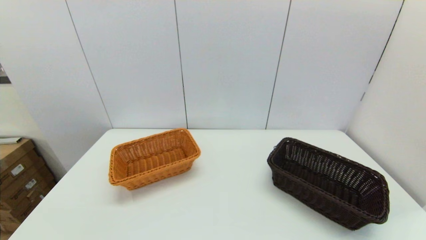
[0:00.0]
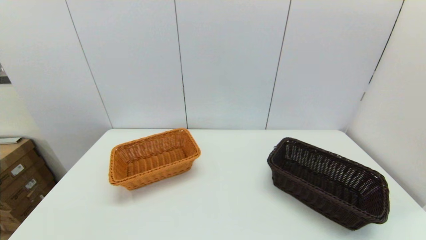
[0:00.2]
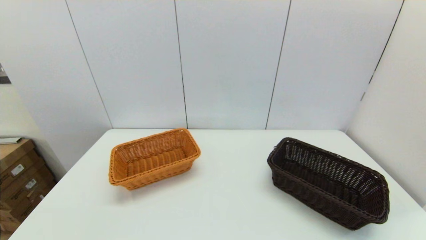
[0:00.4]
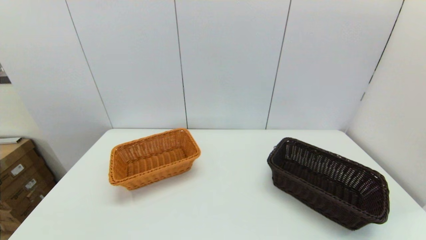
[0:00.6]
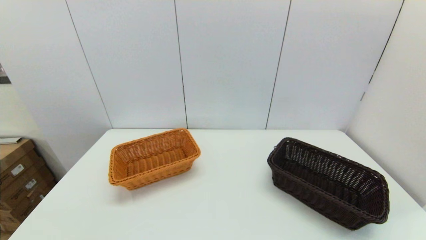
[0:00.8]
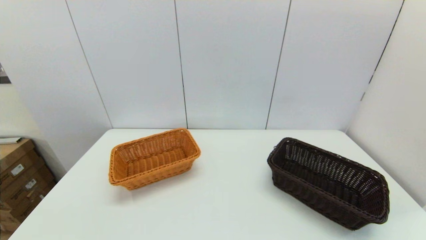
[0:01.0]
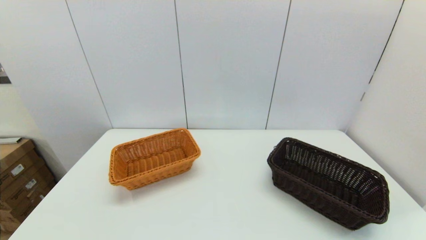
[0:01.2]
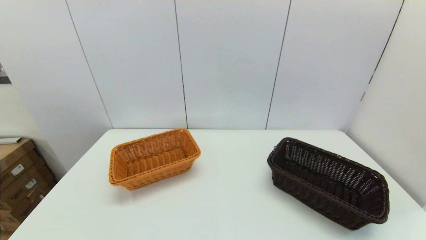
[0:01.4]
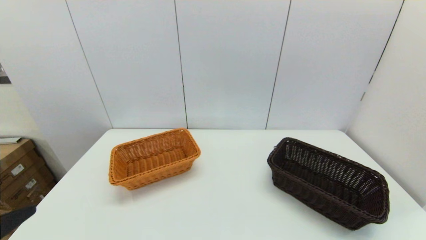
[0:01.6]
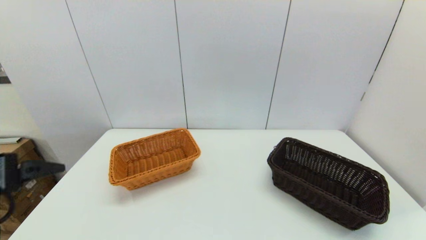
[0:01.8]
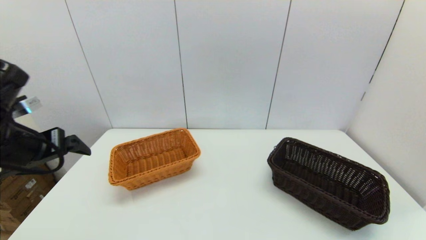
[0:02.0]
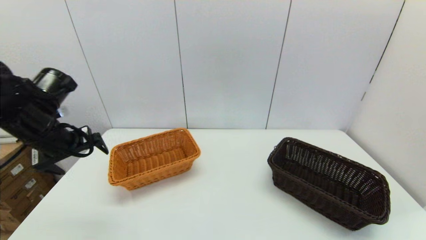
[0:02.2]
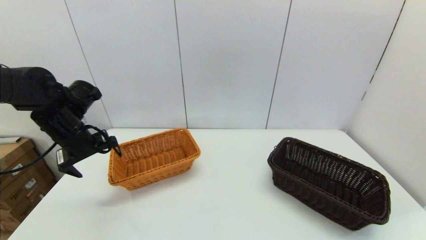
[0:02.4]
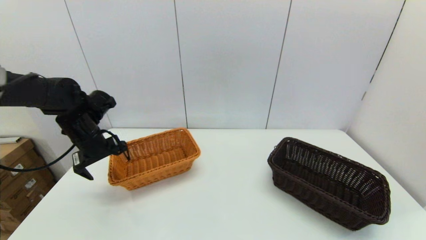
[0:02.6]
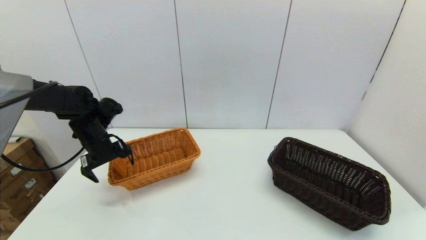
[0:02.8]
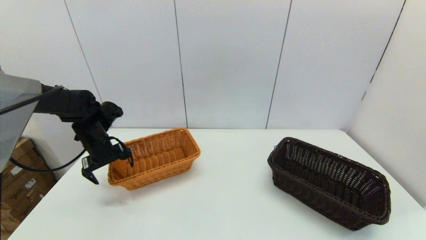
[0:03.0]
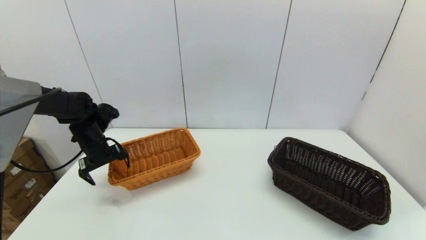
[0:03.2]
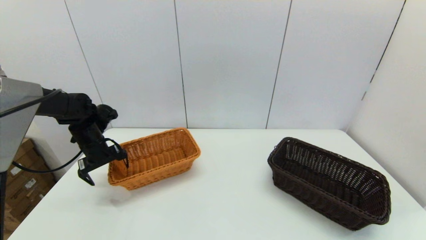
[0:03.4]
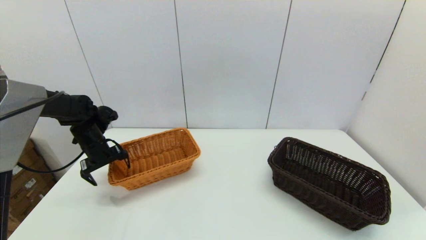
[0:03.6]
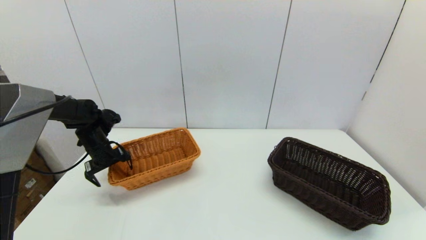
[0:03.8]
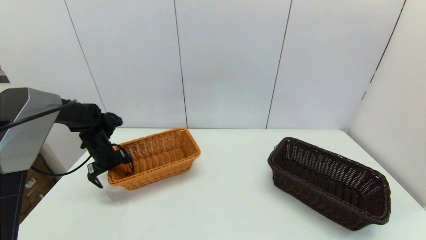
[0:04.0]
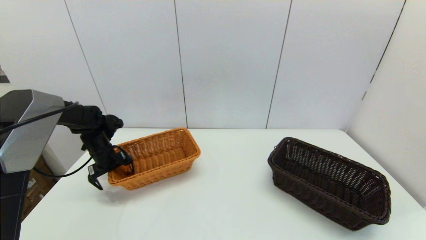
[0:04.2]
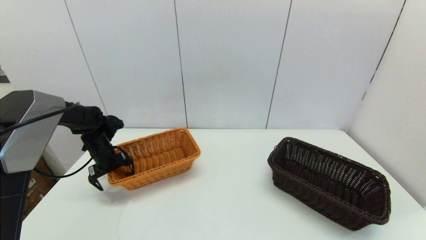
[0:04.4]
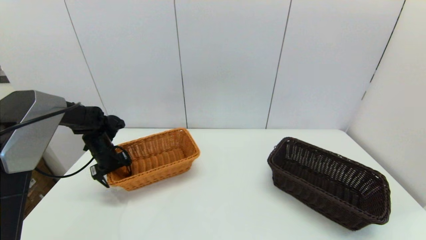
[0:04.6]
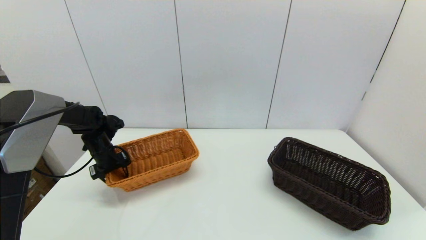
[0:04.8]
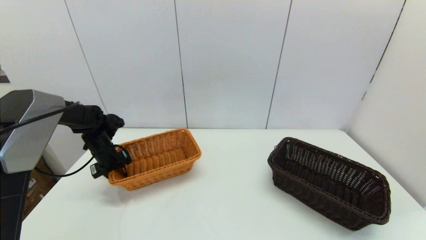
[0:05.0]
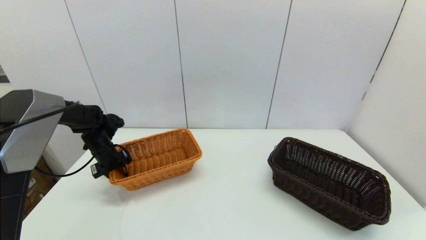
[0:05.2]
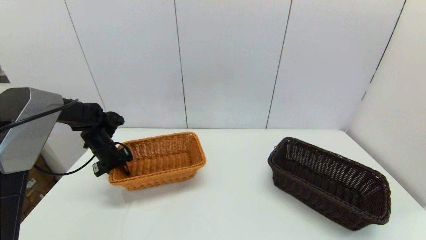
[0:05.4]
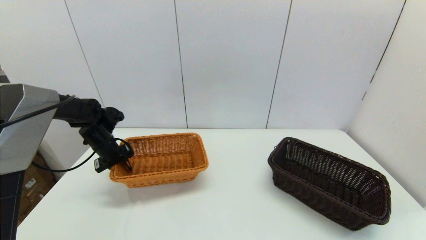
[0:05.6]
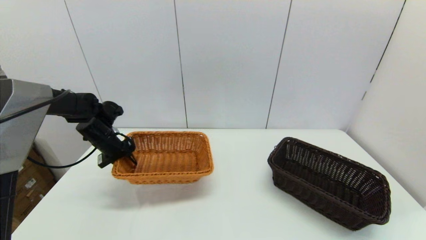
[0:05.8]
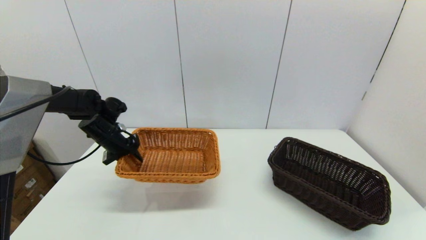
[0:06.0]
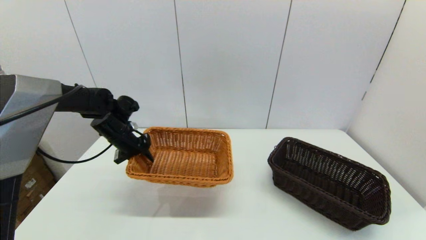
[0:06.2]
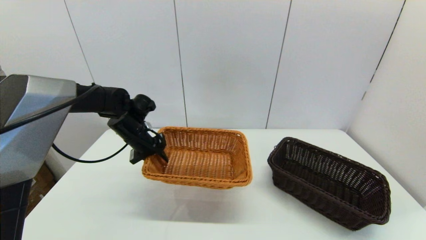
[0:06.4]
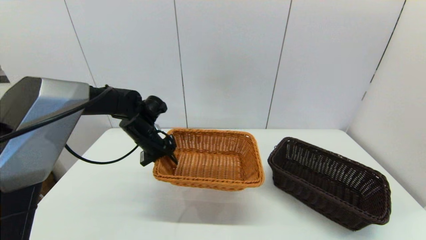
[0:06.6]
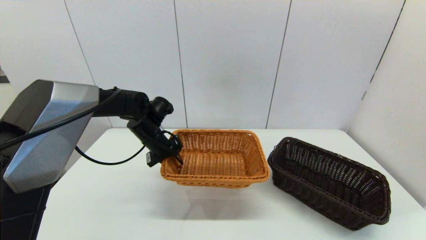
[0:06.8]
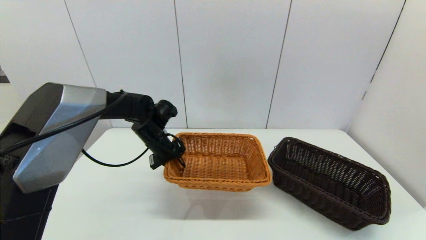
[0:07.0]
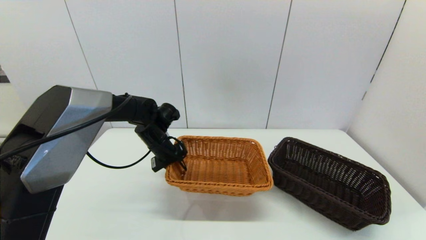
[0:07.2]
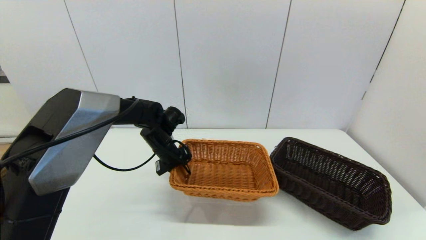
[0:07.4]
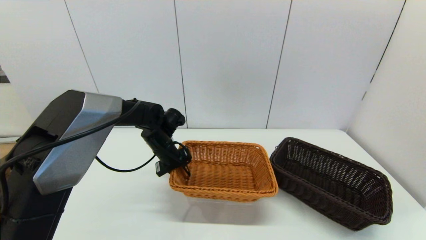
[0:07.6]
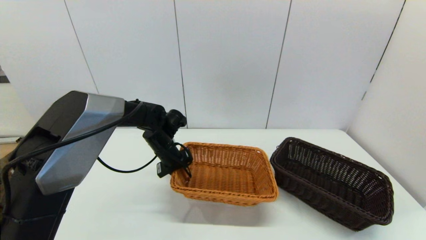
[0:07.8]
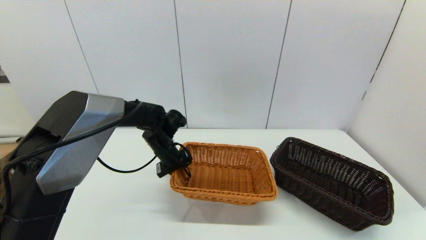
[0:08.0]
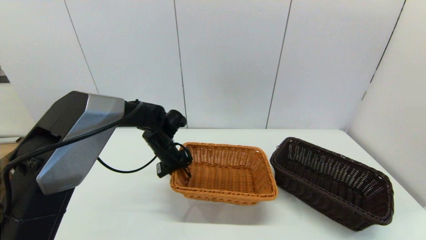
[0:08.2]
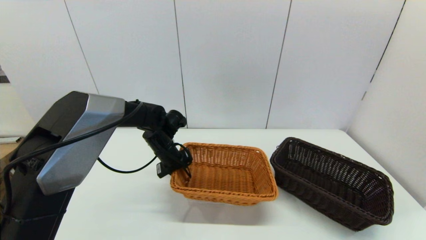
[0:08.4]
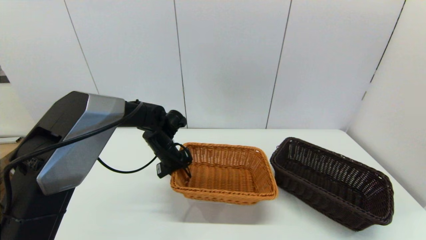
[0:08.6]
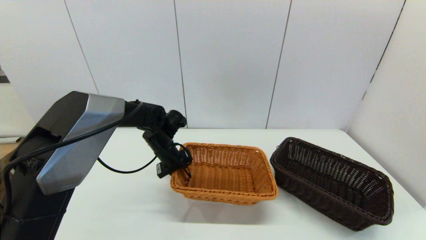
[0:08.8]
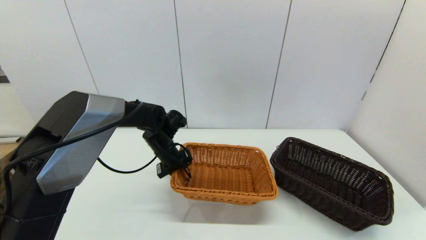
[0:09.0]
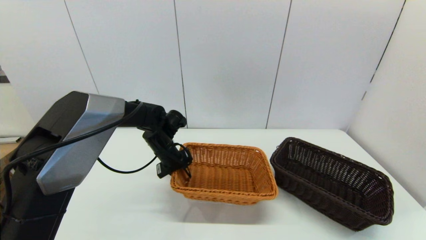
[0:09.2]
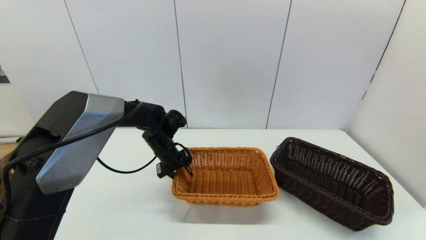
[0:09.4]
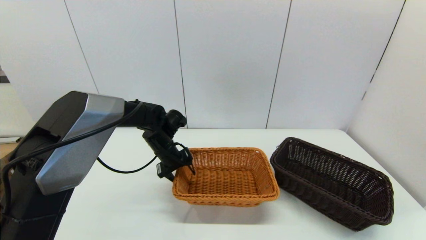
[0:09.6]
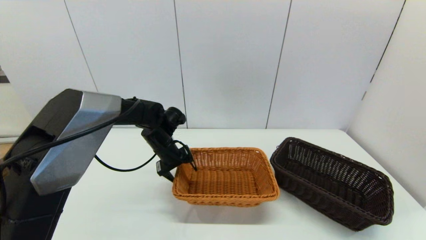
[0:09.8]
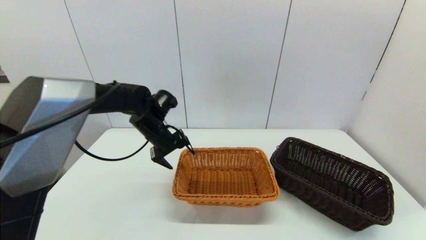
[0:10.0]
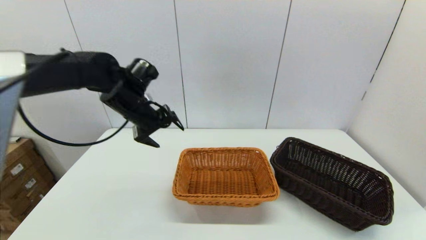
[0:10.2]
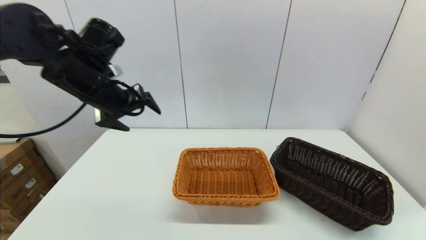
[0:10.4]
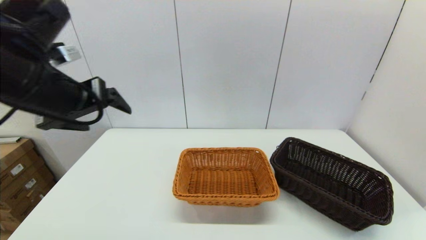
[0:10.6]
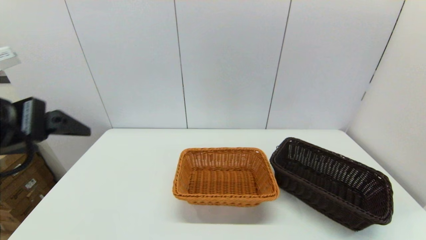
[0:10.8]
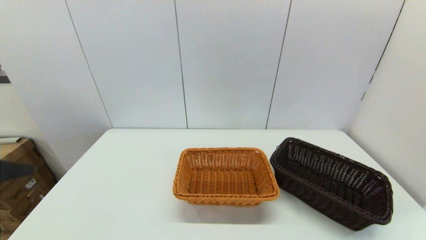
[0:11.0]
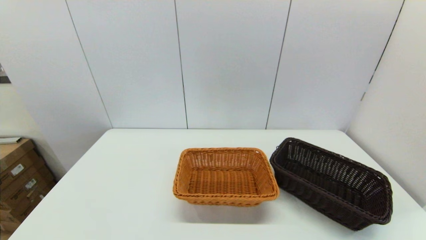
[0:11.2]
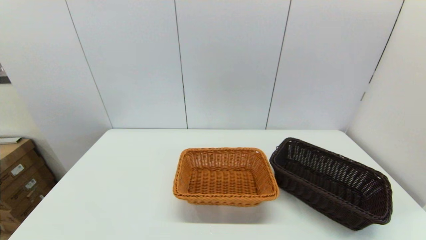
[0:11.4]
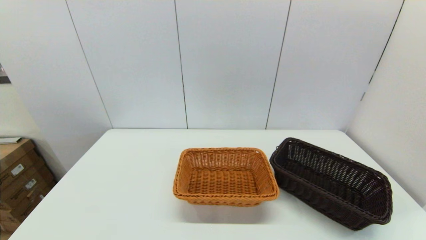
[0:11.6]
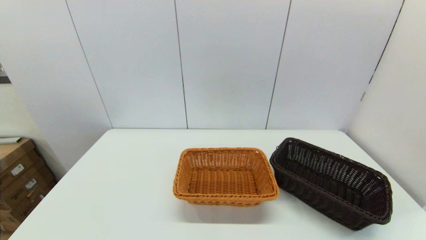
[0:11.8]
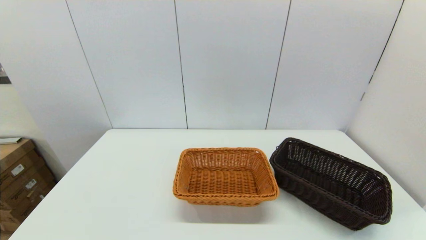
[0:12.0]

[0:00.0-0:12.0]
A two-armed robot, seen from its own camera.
Task of the whole recording: stack a basket on top of another basket.
Step, 0:01.6 to 0:05.4: Grasp the light basket with the left gripper.
Step, 0:05.6 to 0:10.2: Place the light basket on the middle of the table with the left gripper.
0:01.6 to 0:03.0: The left gripper moves forward, some 35 cm.
0:03.0 to 0:04.4: The left gripper shifts some 5 cm downward.
0:04.4 to 0:06.0: The left gripper travels upward by some 5 cm, and closes its fingers.
0:06.0 to 0:07.6: The left gripper shifts roughly 15 cm to the right.
0:07.6 to 0:09.0: Both grippers stay put.
0:09.0 to 0:10.4: The left gripper shifts some 25 cm upward and backward, and opens its fingers.
0:10.4 to 0:12.0: The left gripper is displaced backward by approximately 40 cm.

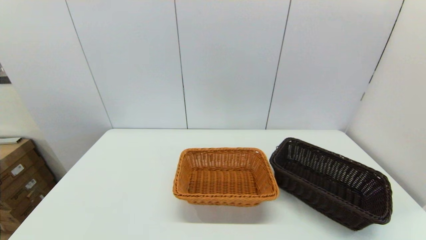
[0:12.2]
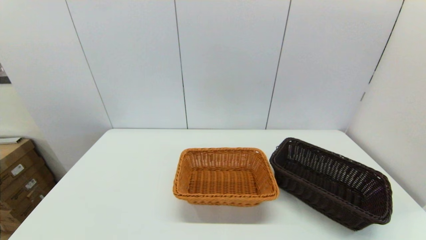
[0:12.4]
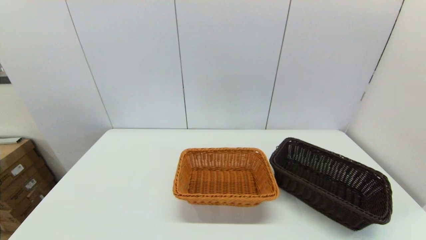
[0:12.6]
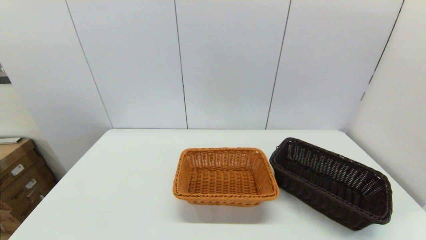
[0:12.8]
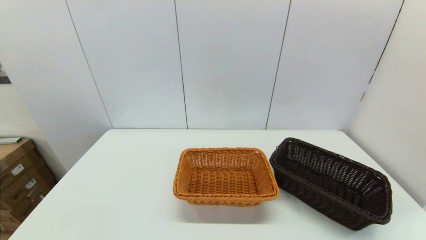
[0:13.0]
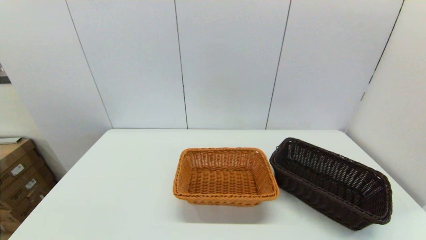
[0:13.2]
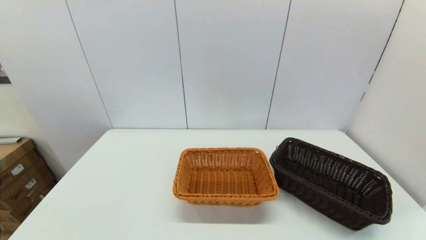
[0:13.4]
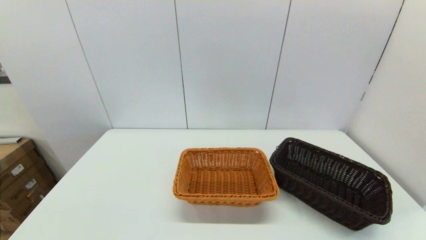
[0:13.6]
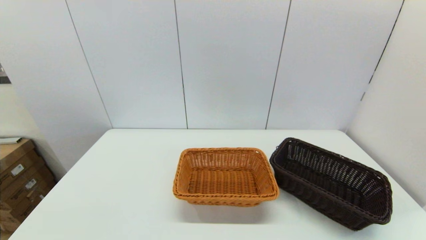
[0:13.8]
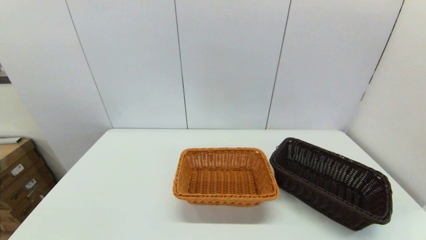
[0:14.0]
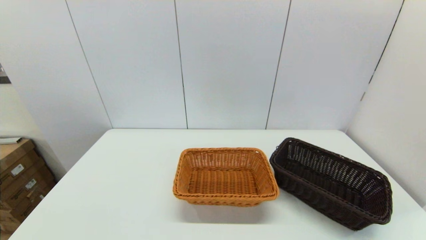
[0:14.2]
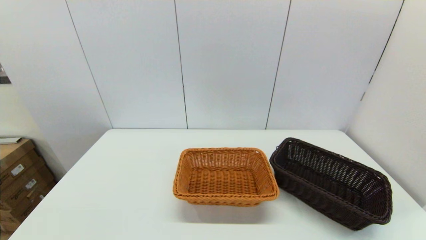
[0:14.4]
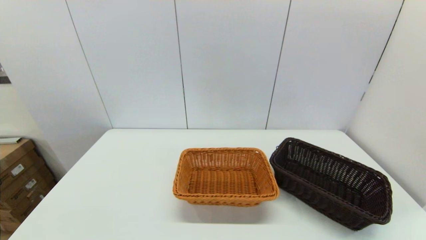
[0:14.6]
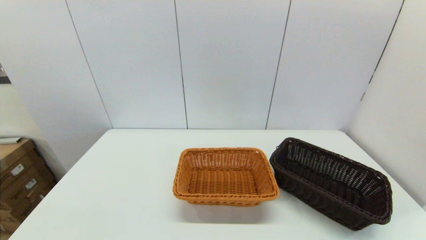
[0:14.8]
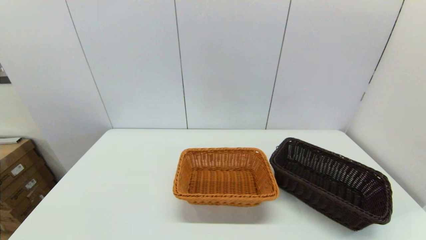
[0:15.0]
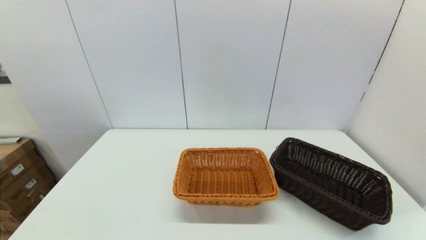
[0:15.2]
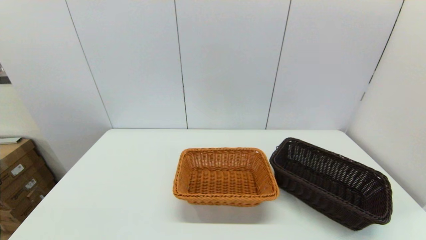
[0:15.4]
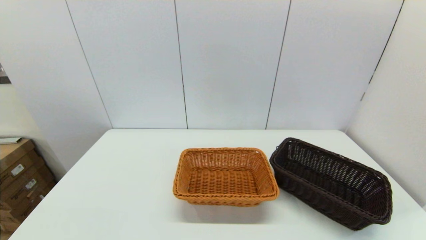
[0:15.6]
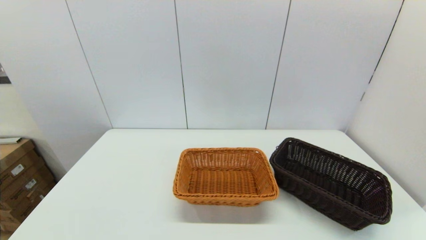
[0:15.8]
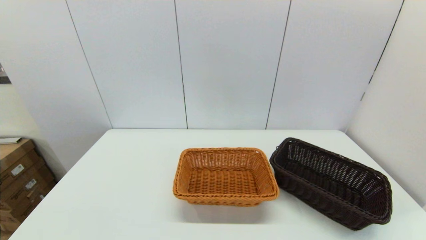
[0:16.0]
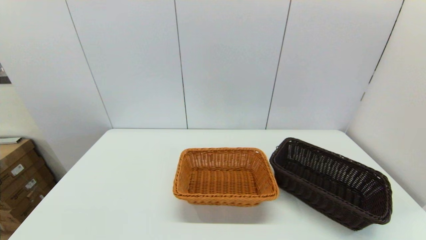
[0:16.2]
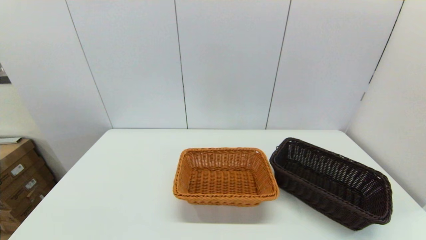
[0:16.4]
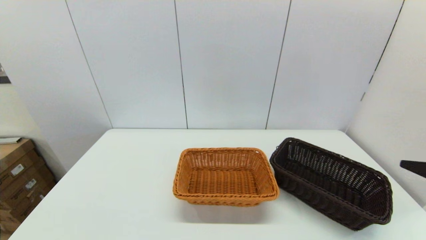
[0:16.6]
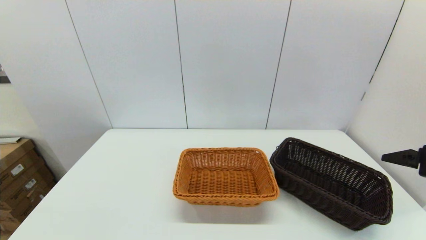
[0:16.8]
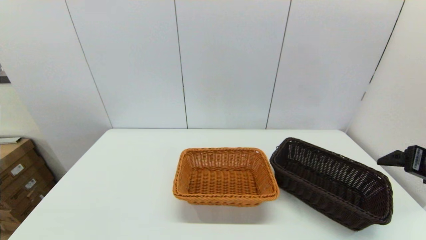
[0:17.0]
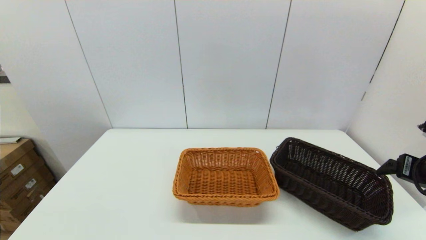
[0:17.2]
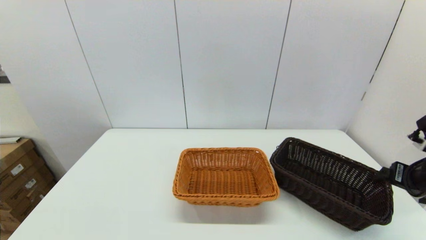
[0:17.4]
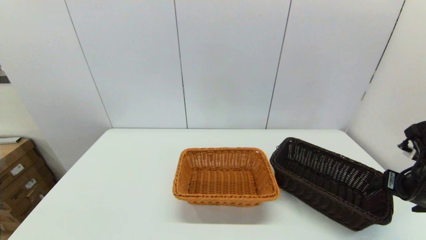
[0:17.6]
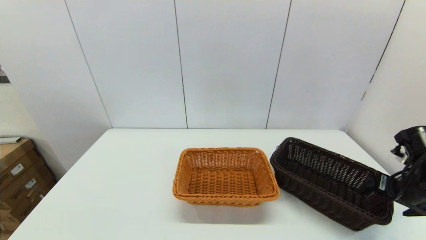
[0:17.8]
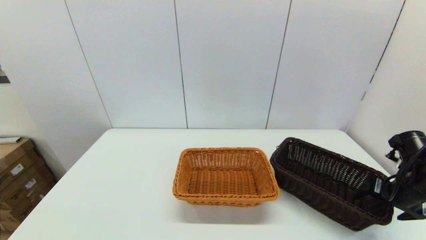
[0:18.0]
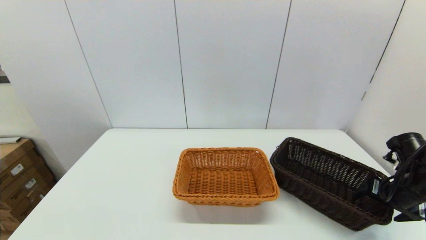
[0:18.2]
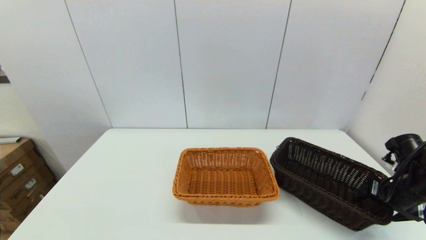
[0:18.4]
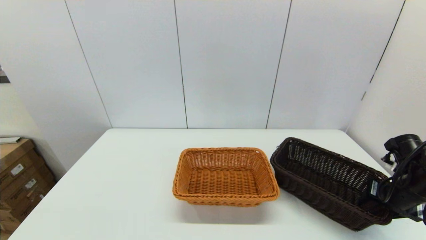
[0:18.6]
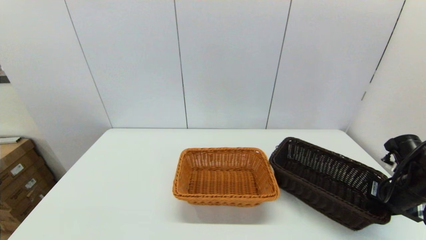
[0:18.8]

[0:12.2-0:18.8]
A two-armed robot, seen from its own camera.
Task of the whole recording: stack a basket on top of another basket.
Step, 0:12.2 to 0:18.8: Grasp the dark basket with the right gripper.
0:15.4 to 0:17.2: The right gripper heads forward, covering approximately 25 cm.
0:17.2 to 0:18.8: The right gripper travels downward by about 10 cm, and closes.
